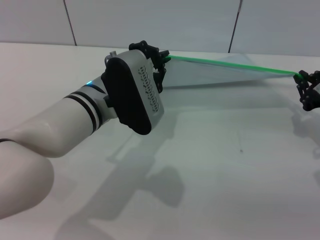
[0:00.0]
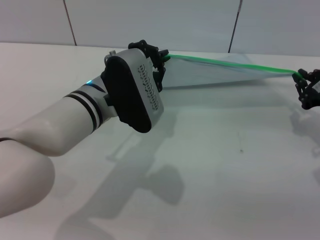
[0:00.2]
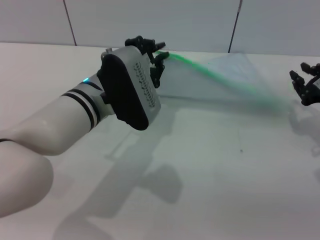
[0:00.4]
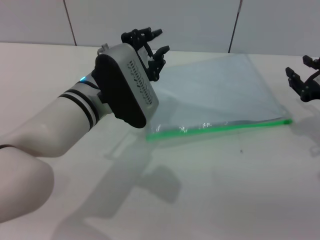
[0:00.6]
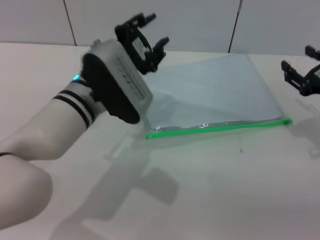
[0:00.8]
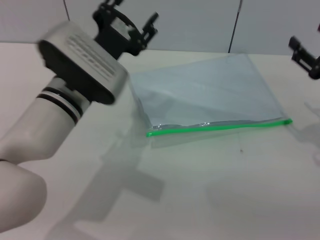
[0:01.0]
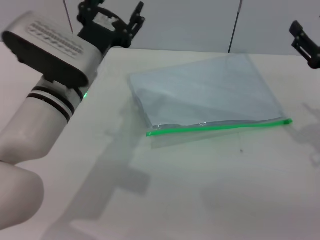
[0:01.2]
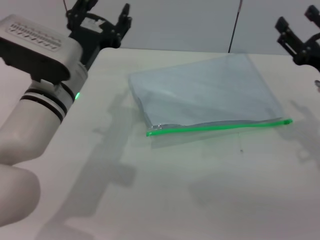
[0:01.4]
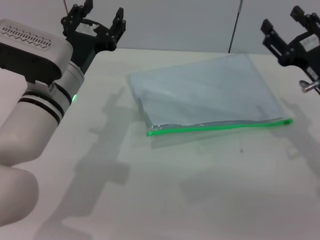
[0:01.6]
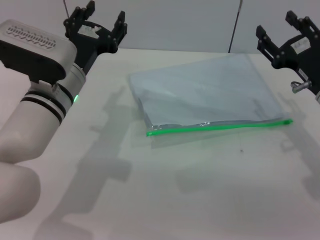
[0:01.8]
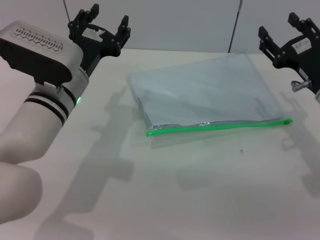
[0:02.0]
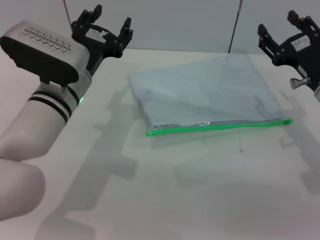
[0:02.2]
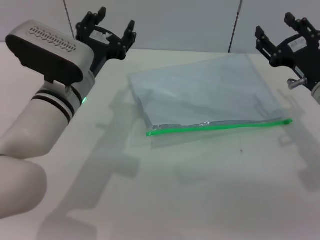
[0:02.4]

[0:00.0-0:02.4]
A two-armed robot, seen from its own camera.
Step, 0:00.4 to 0:01.0: Place the transparent plastic bag.
0:00.0 to 0:01.2: The right gripper opens its fingers. The left gripper opens.
0:01.2 to 0:02.4: The right gripper changes place by some 5 cm.
